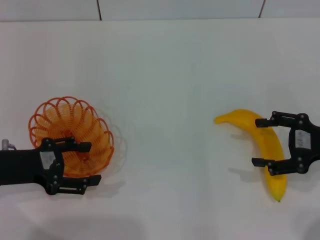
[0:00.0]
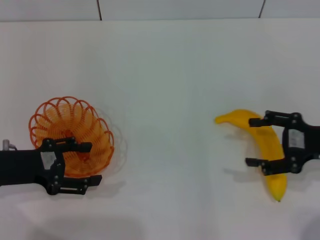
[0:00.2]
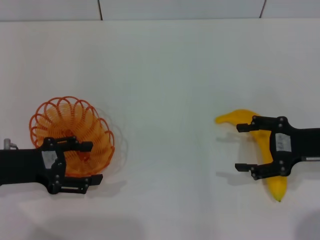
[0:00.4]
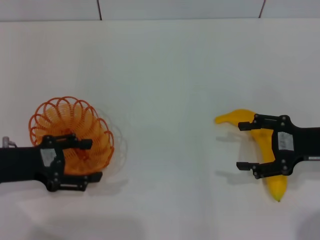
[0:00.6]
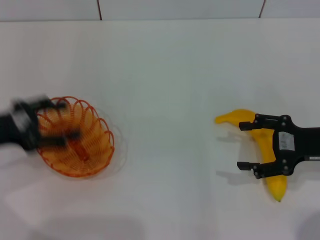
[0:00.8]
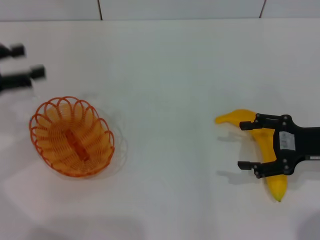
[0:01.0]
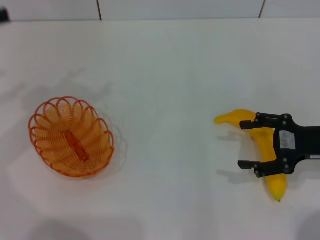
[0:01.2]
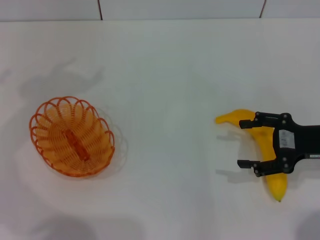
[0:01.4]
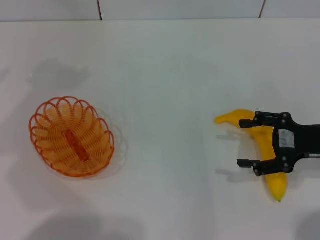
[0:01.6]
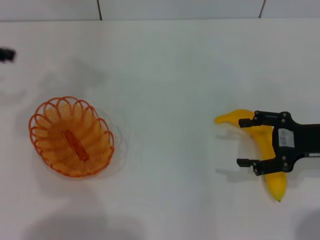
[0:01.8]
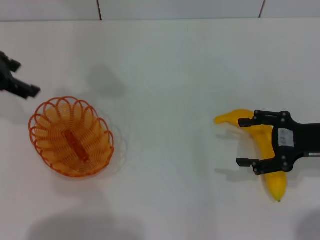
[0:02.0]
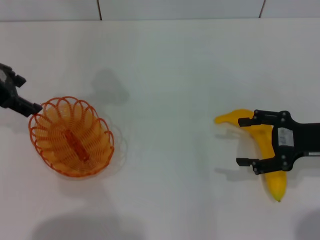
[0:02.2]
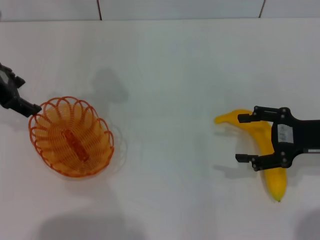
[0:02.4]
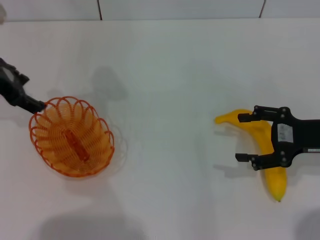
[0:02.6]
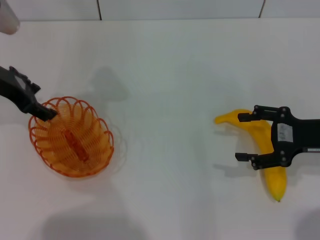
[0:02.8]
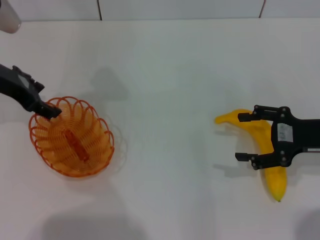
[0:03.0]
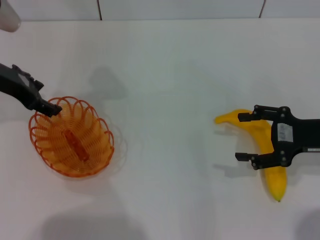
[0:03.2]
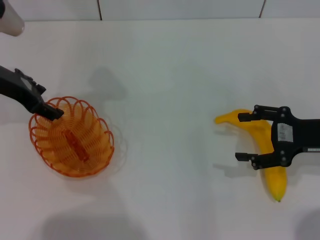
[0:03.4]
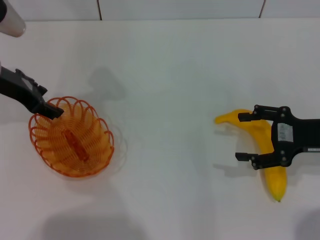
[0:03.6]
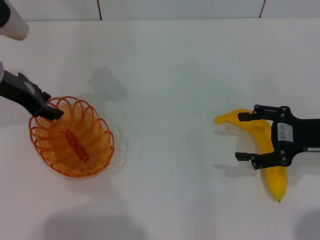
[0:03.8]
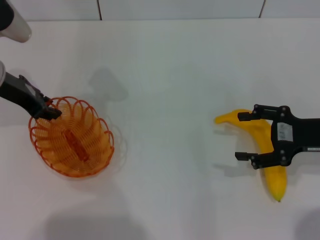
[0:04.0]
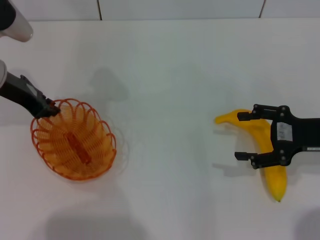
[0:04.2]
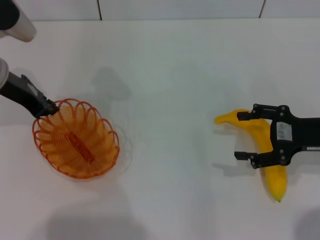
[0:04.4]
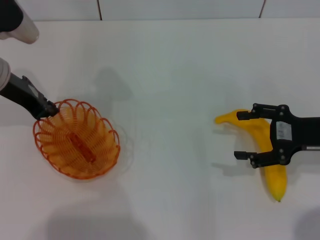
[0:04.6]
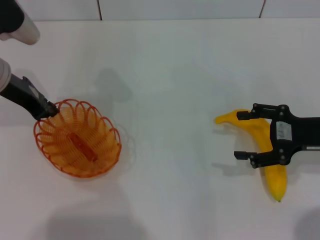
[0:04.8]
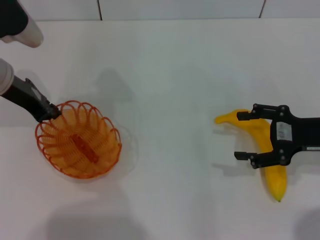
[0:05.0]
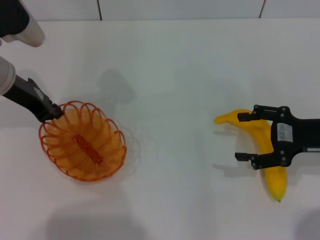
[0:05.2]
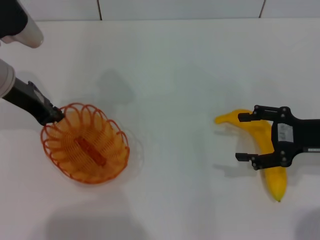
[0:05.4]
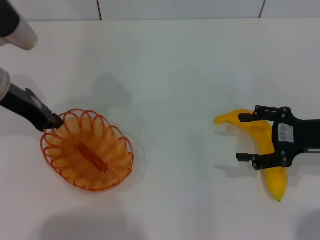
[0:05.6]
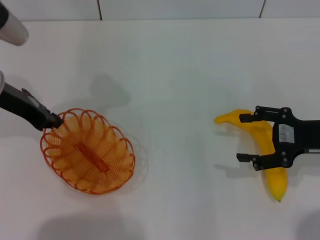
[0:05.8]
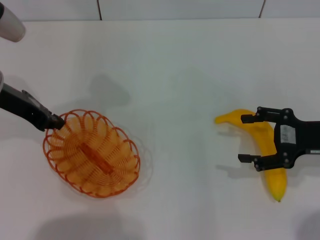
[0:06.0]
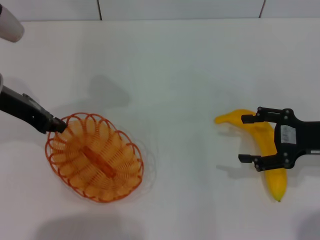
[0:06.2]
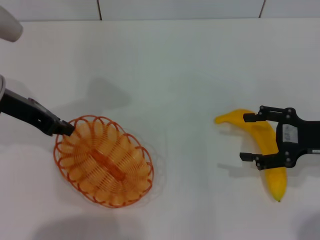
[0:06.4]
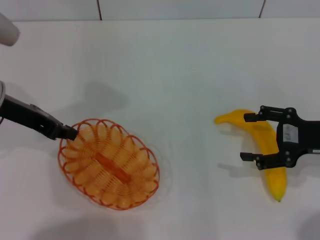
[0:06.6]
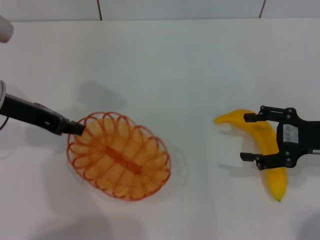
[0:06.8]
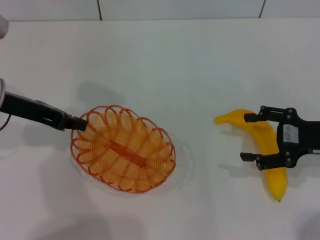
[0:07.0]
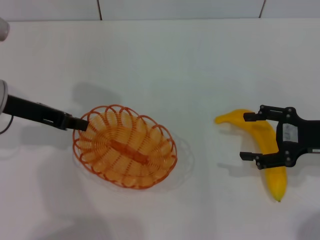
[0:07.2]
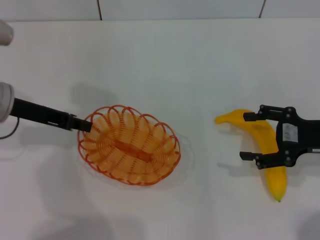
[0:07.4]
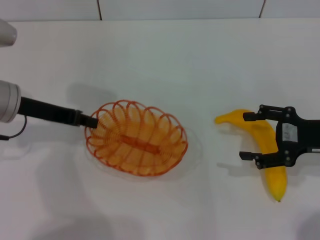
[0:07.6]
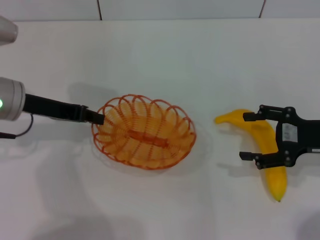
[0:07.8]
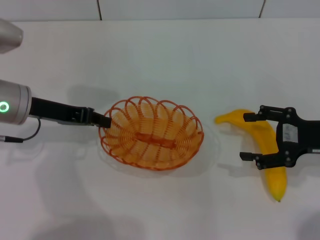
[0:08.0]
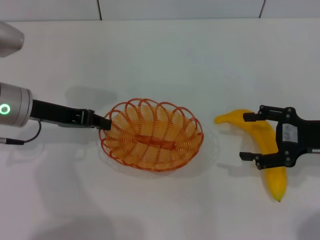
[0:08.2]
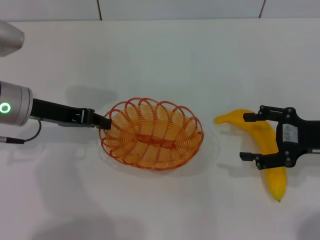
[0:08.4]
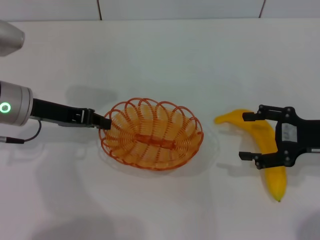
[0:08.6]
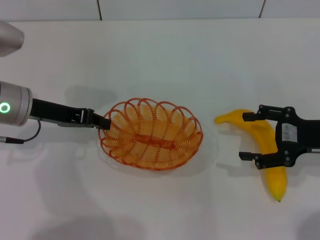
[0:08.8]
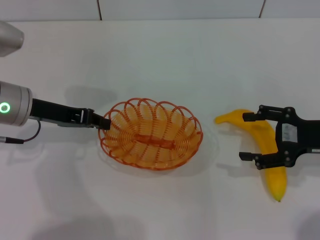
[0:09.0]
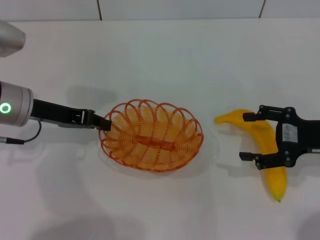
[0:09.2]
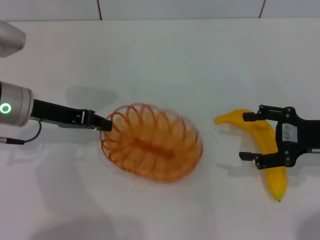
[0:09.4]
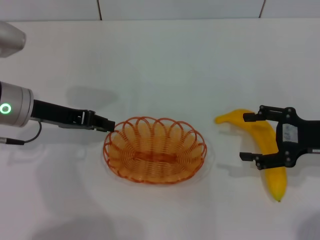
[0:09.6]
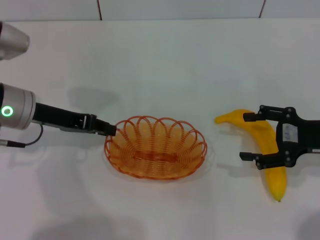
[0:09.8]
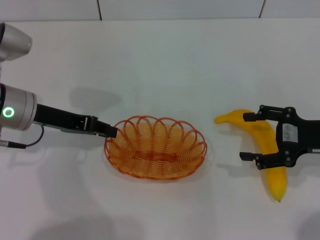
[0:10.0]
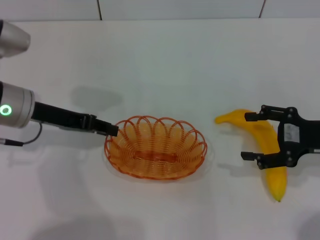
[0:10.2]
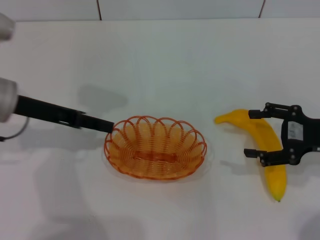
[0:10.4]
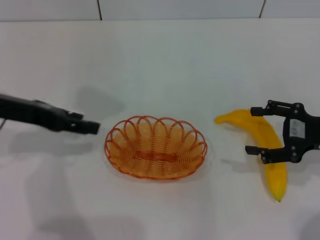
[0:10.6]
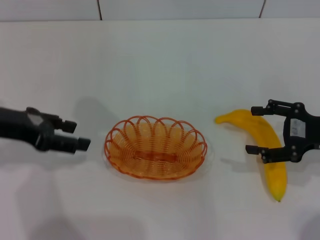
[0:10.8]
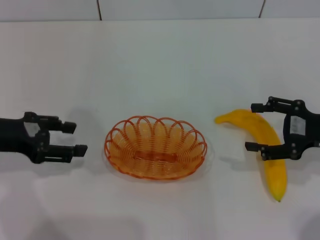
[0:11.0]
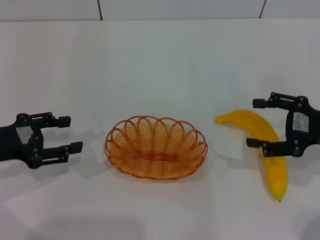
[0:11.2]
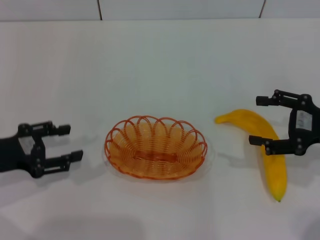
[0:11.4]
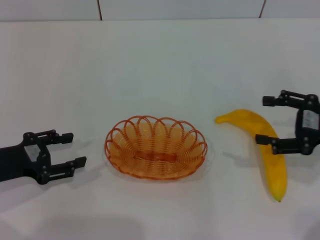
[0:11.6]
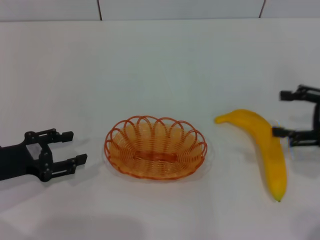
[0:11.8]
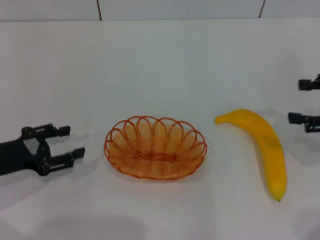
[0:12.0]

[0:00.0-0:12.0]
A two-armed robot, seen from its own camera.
Step, 0:00.0 to 0:07.0: Pick up the basket with the left gripper.
Step, 0:07.4 to 0:10.4: Place the basket in the center of view with the left gripper.
0:00.0 to 0:01.6: The left gripper shifts about 25 cm upward, forward and to the left.
0:01.6 to 0:03.0: The left gripper heads to the right and downward, covering about 15 cm.
0:03.0 to 0:04.4: The left gripper closes up.
0:04.4 to 0:06.0: The grippers stay close to where they were, moving slightly.
0:07.6 to 0:10.4: The grippers move only a little.
0:10.4 to 0:12.0: The right gripper heads upward, covering some 5 cm, while the left gripper shifts roughly 15 cm downward, backward and to the left, and opens its fingers.

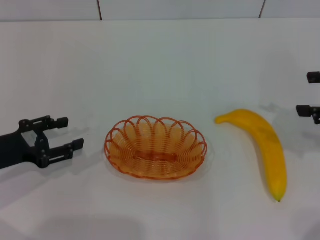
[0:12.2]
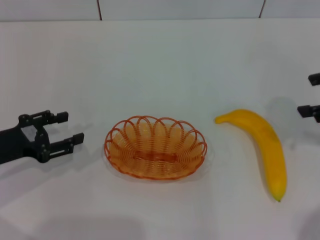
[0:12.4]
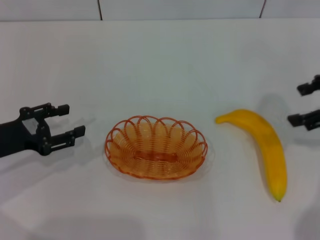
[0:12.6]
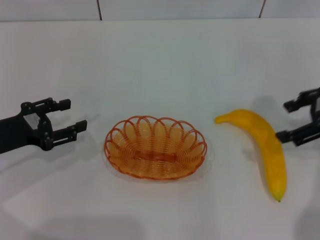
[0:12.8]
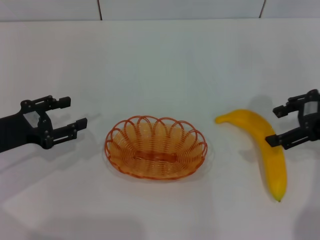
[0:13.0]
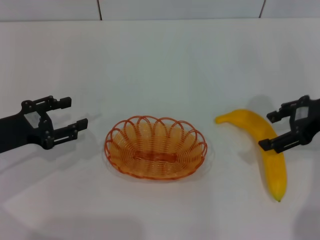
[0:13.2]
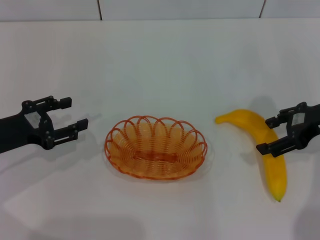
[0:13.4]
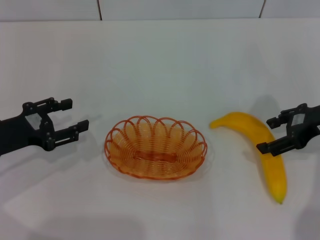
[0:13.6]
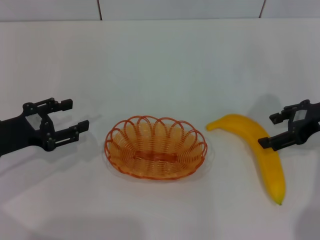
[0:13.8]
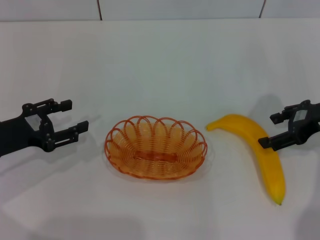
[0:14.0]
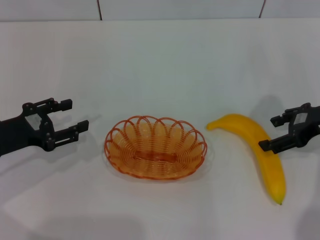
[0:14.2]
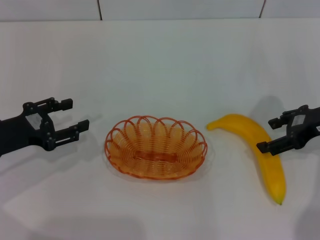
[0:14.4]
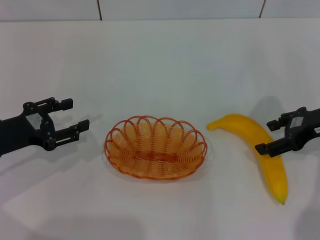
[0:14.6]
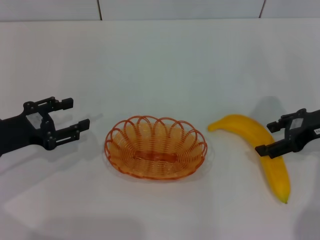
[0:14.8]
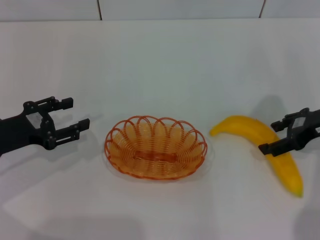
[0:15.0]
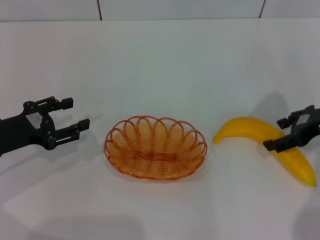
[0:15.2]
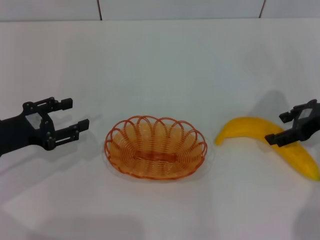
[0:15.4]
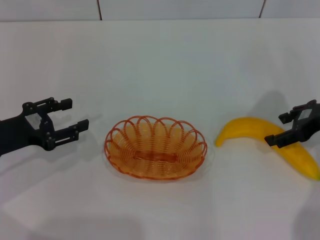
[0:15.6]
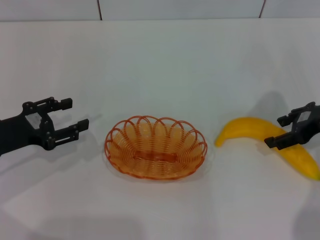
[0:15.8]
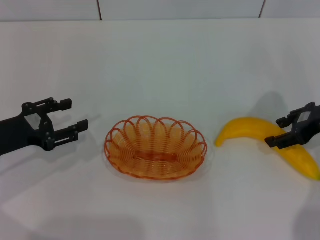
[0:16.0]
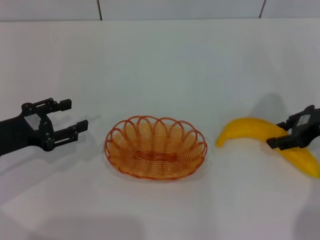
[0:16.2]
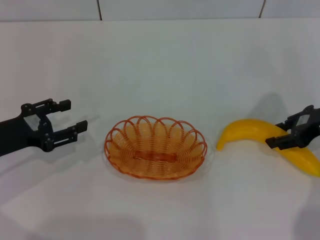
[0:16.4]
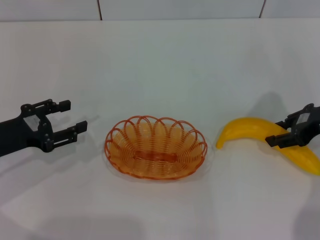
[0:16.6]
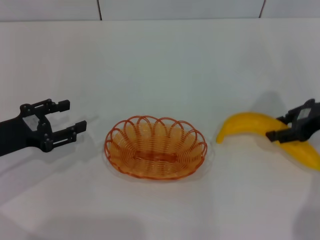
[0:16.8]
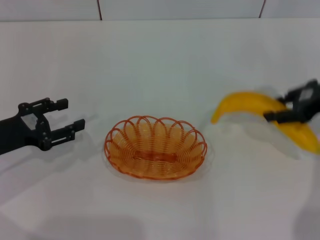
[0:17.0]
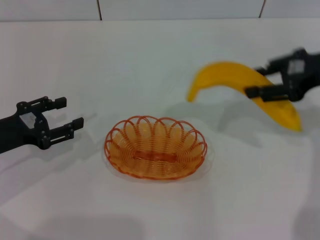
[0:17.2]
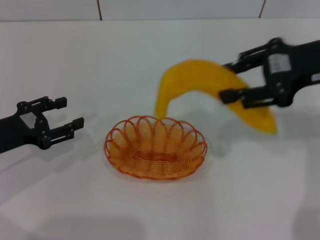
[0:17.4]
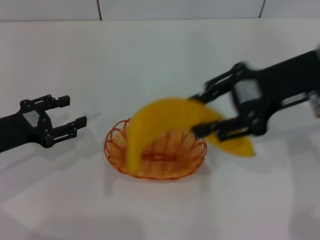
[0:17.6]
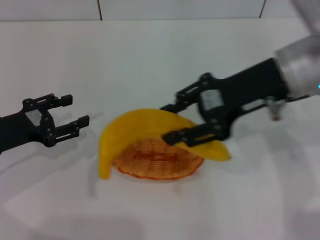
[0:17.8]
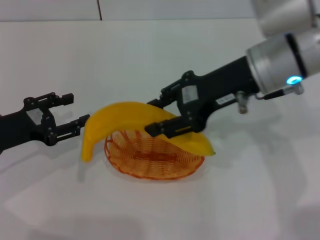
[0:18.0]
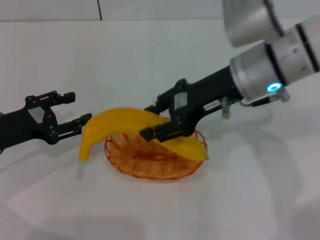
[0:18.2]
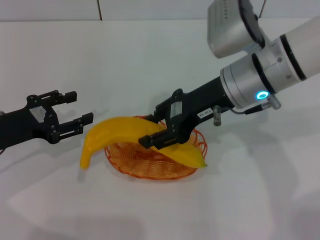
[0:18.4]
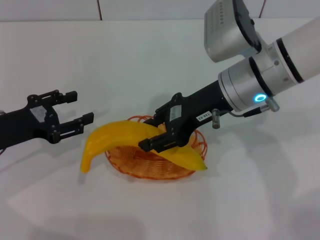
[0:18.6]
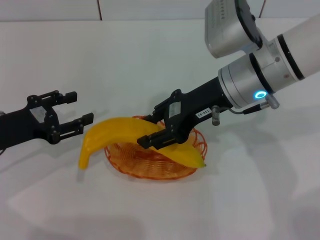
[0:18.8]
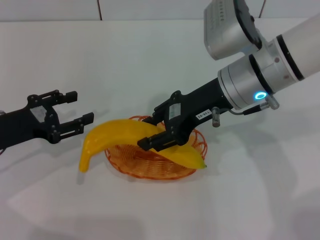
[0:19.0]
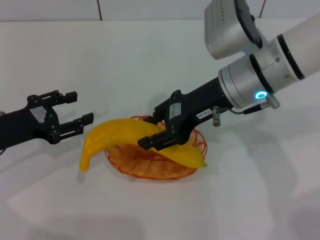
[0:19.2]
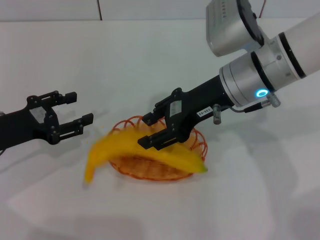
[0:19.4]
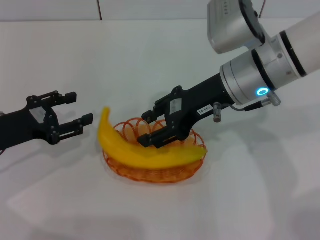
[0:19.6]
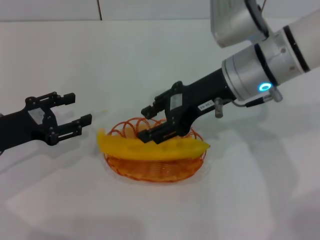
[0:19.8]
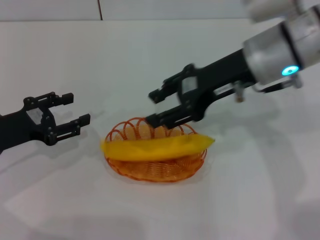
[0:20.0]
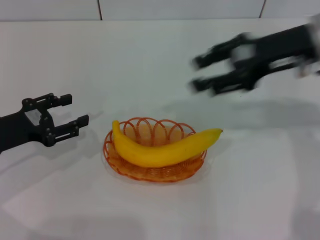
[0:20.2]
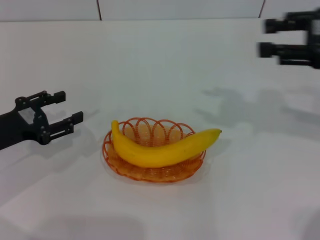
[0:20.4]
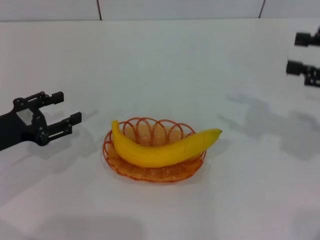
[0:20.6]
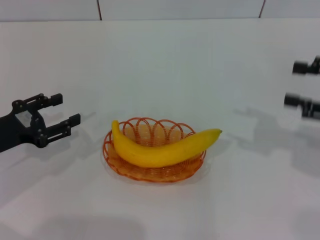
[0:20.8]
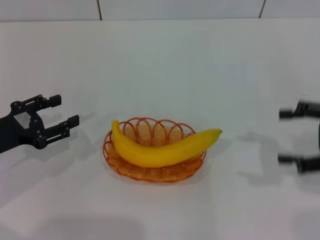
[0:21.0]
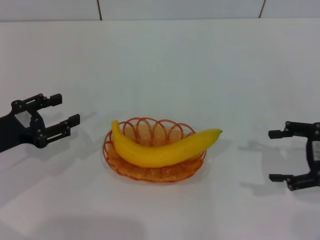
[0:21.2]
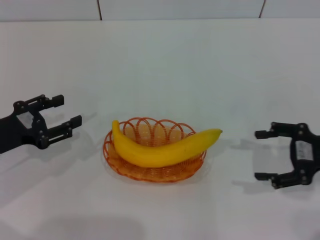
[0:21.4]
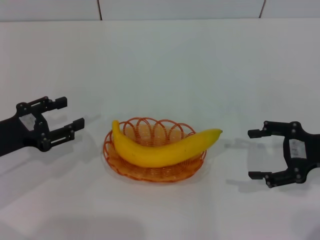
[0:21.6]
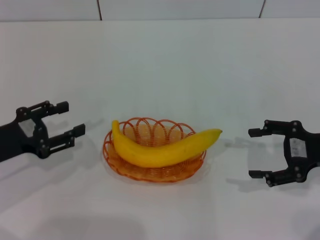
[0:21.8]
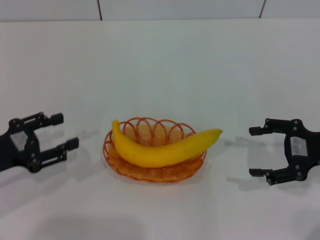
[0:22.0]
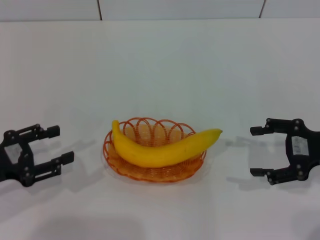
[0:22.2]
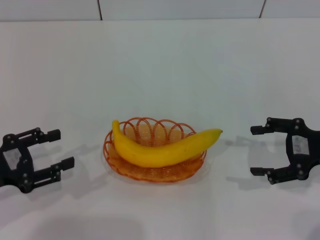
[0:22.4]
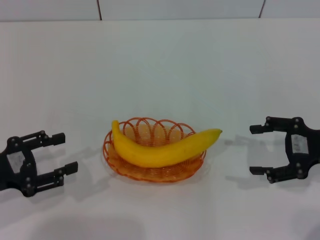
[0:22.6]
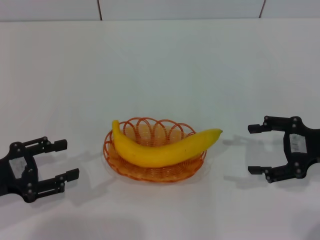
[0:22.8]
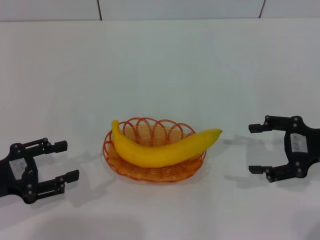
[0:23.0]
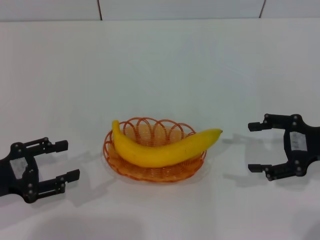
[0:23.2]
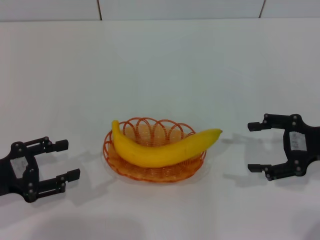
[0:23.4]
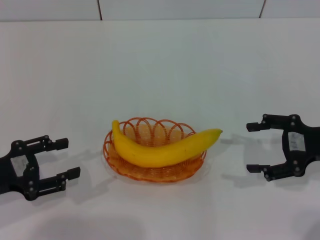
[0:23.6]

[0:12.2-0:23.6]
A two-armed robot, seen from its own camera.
Step, 0:12.2 to 0:17.2: Pick up the banana with the right gripper.
Step, 0:17.4 to 0:21.0: Place the banana into the basket with the right gripper.
0:12.2 to 0:13.6: The right gripper moves to the left and downward, about 10 cm.
0:13.6 to 0:15.0: The grippers make only small movements.
0:15.0 to 0:16.4: The right gripper closes.
0:16.4 to 0:17.8: The right gripper goes approximately 15 cm to the left and upward.
0:17.8 to 0:19.4: The right gripper shifts by some 5 cm.
0:19.4 to 0:20.8: The right gripper travels to the right by approximately 25 cm.
0:20.8 to 0:22.2: The right gripper heads downward, covering about 5 cm, and opens.
0:22.2 to 0:23.6: The grippers stay close to where they were, moving slightly.
